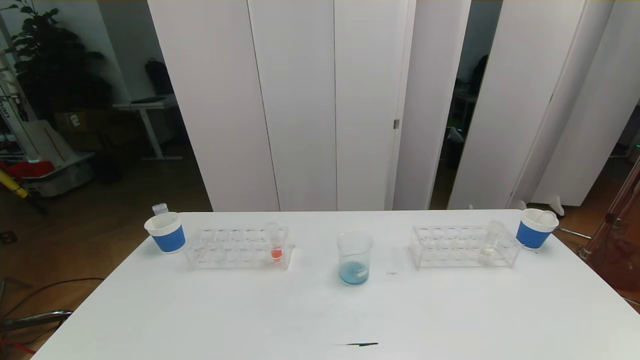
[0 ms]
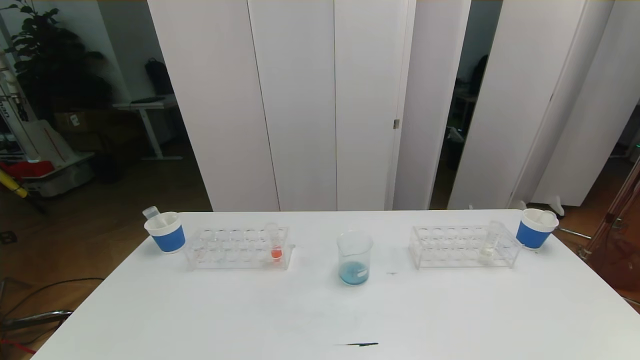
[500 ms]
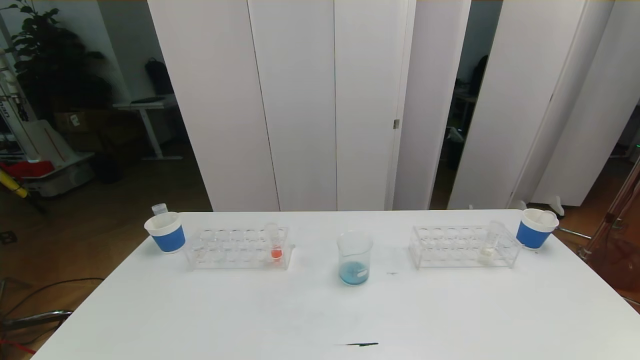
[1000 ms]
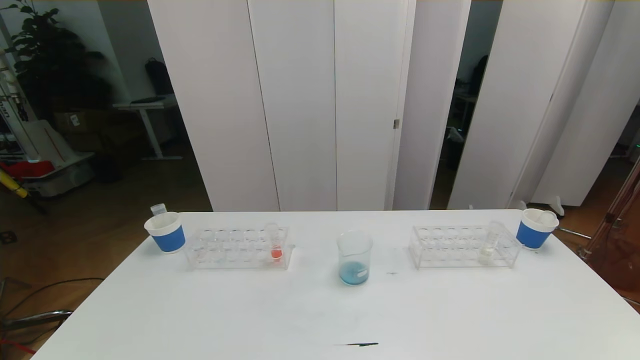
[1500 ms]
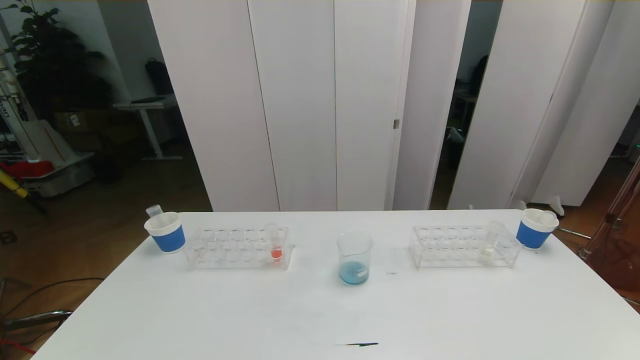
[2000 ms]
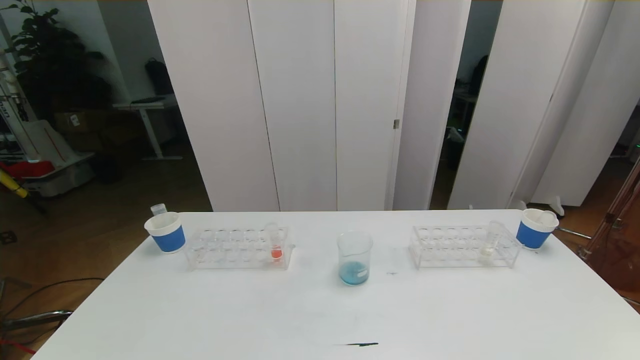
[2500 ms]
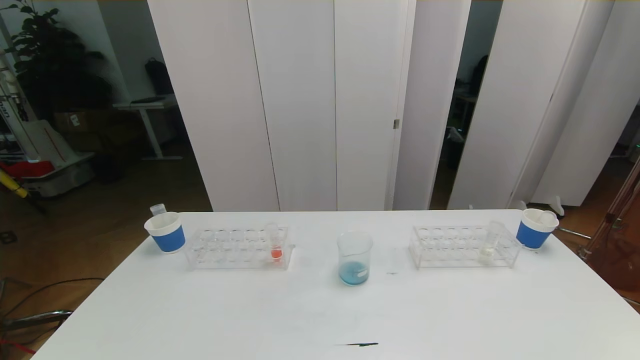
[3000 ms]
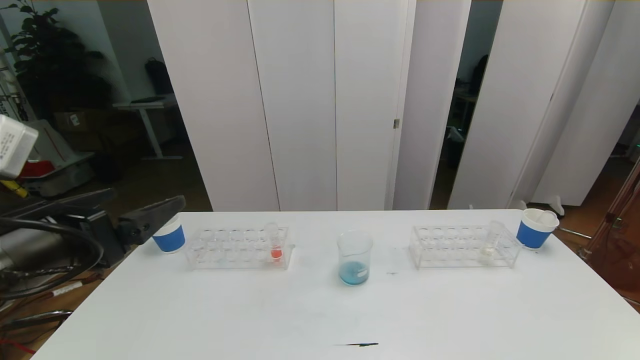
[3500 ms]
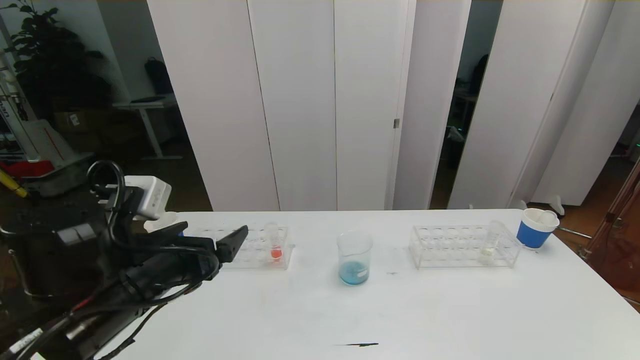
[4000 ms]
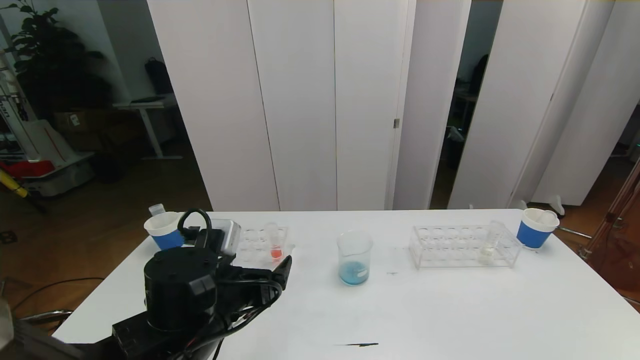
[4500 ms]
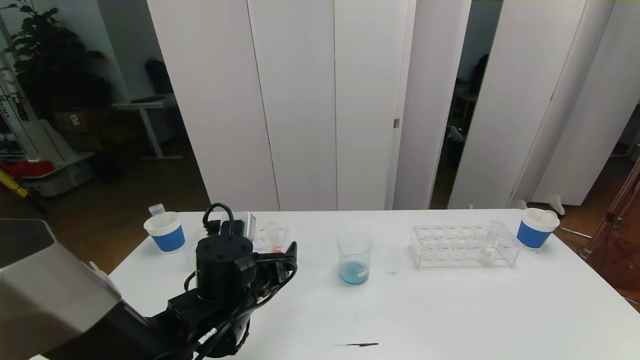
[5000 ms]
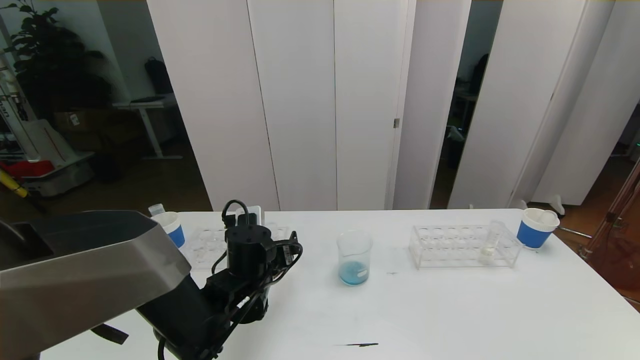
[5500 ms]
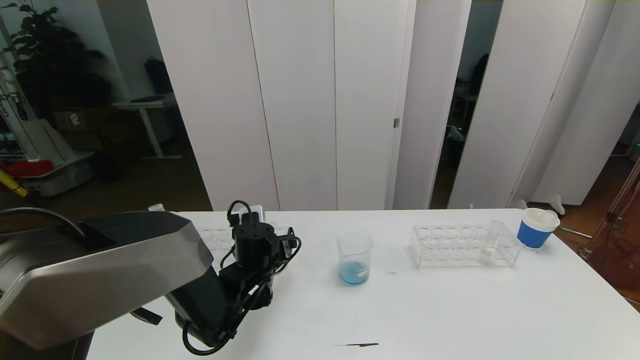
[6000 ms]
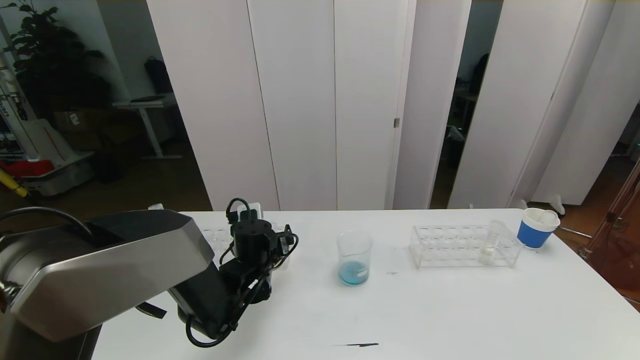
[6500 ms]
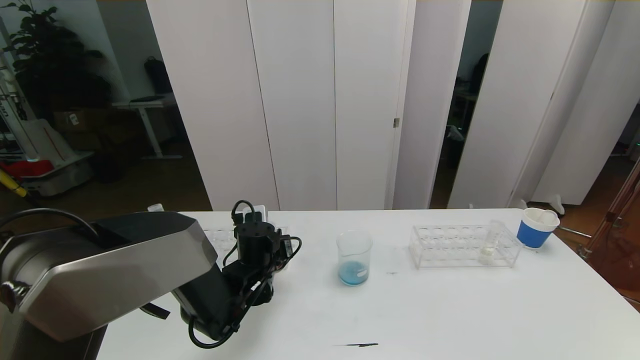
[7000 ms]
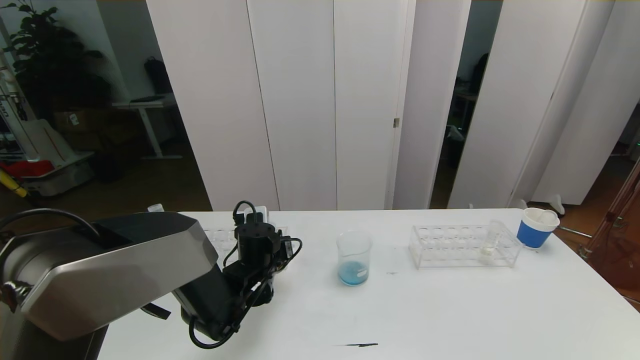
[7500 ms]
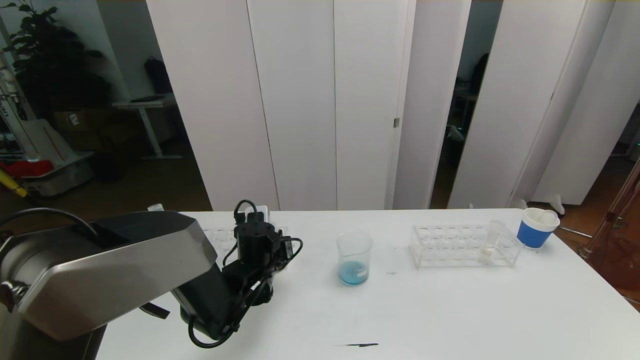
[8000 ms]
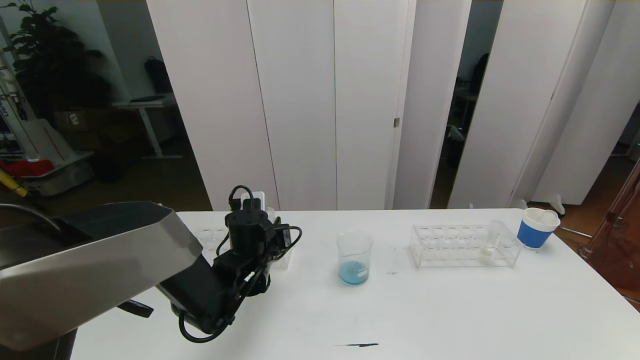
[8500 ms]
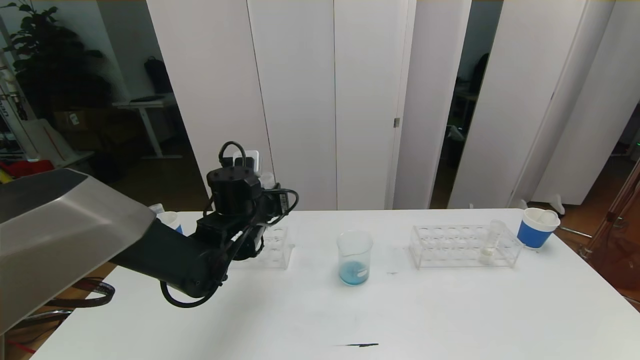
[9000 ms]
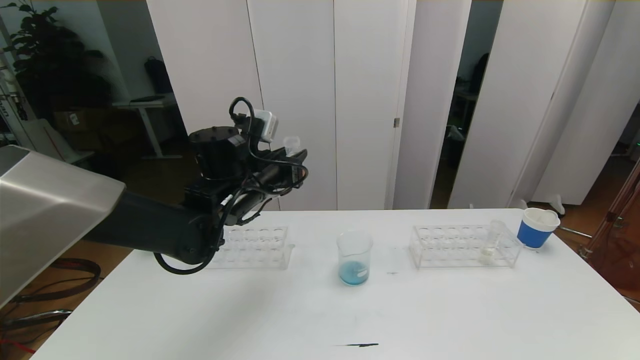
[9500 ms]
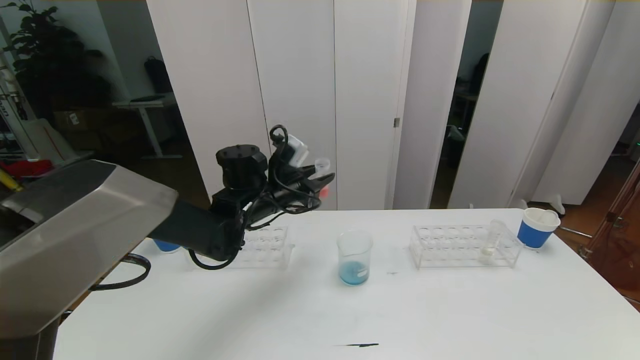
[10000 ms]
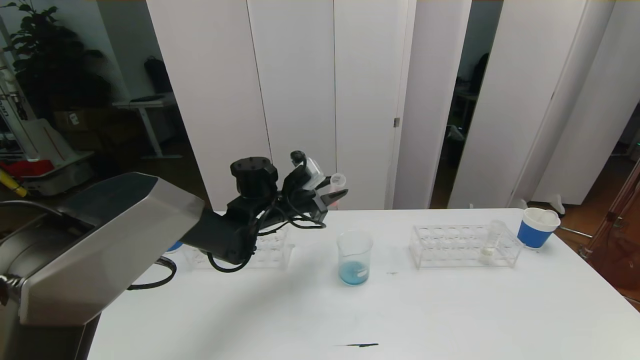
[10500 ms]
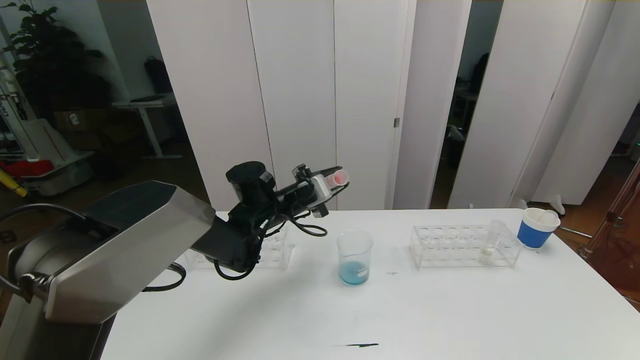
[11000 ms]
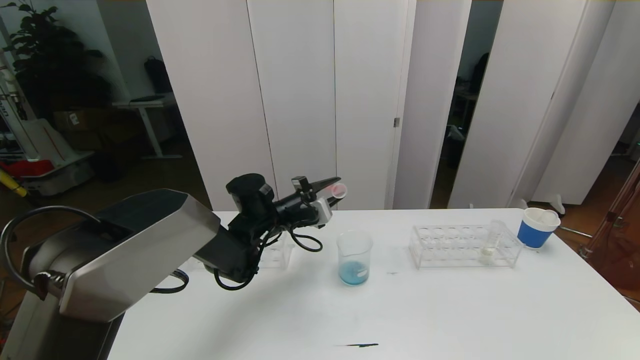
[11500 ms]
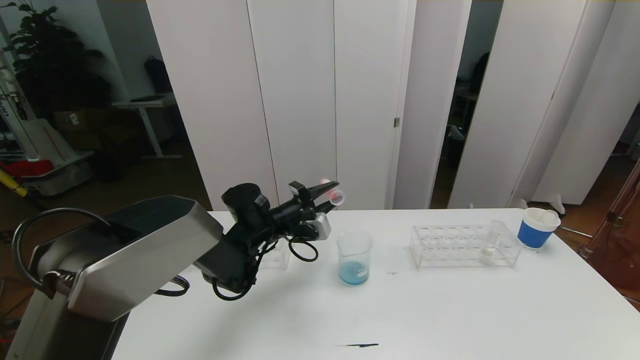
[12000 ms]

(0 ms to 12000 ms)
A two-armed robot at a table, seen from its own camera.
Task of the whole recording: pick up the test tube with red pigment the test tube with blue pigment and the test tube with white pigment by grippers and pour them into the beaker.
2000 ms - 4000 ms: The left gripper shifts approximately 25 cm forward and to the right.
4000 ms - 6000 ms: The left gripper heads forward, downward and to the right, covering approximately 20 cm.
6000 ms - 8000 ms: The left gripper closes up.
8000 ms - 10000 ms: The left gripper moves upward and forward, roughly 15 cm.
10000 ms - 12000 ms: The left gripper goes approximately 5 cm downward.

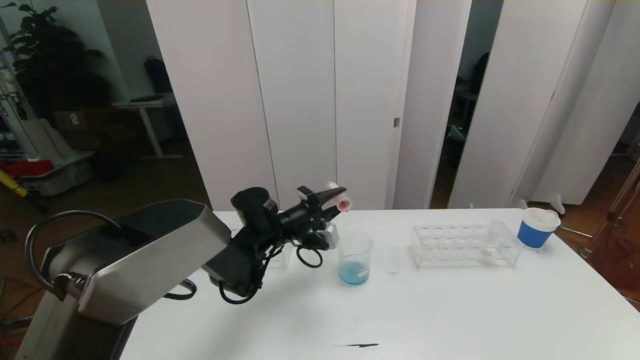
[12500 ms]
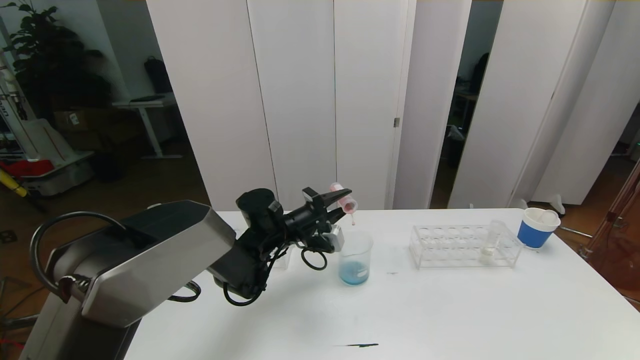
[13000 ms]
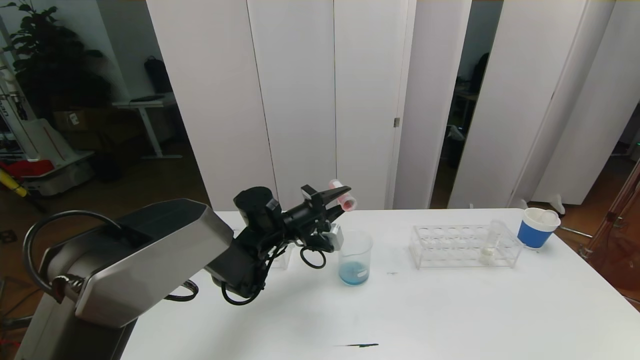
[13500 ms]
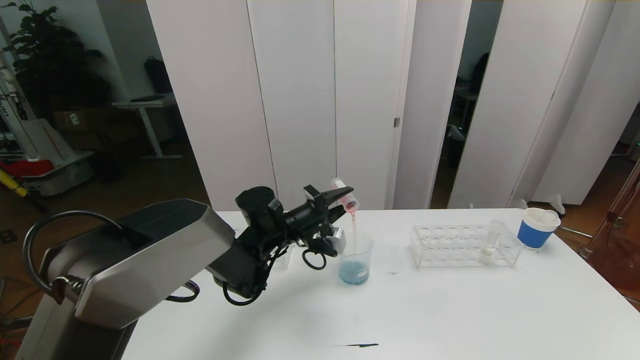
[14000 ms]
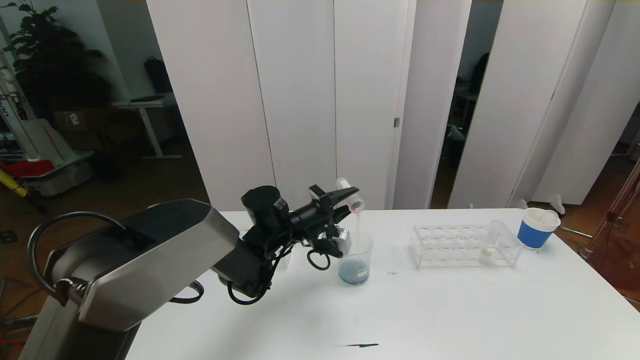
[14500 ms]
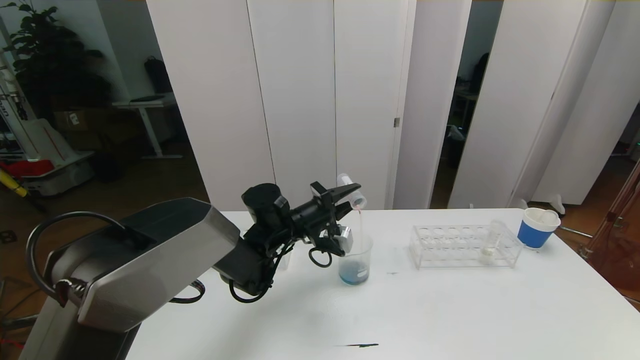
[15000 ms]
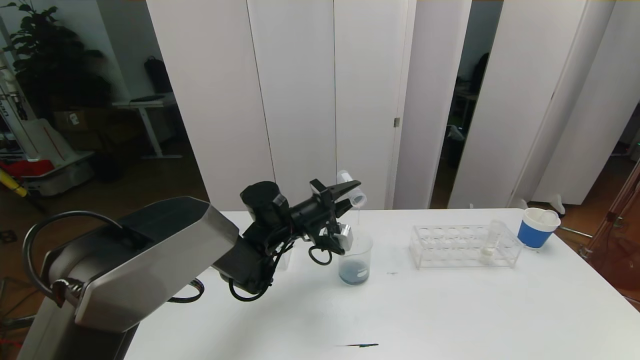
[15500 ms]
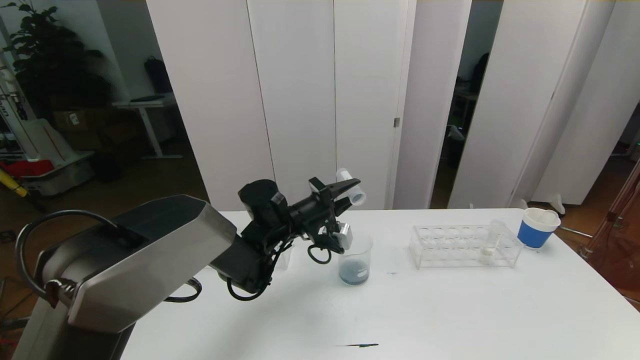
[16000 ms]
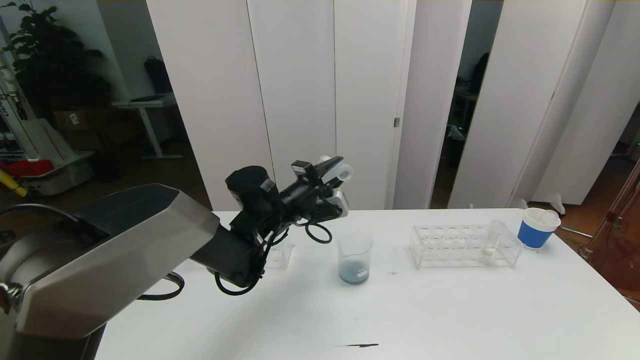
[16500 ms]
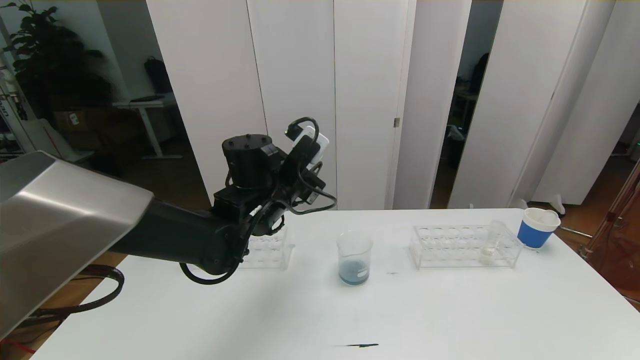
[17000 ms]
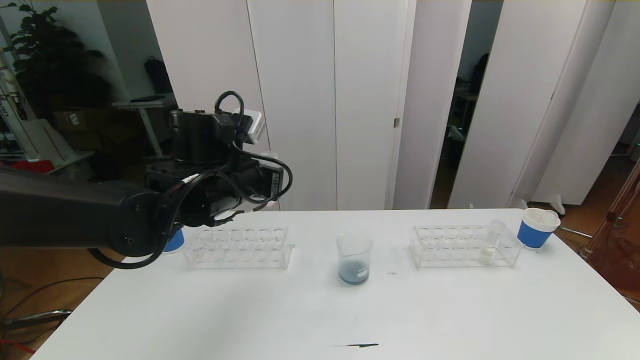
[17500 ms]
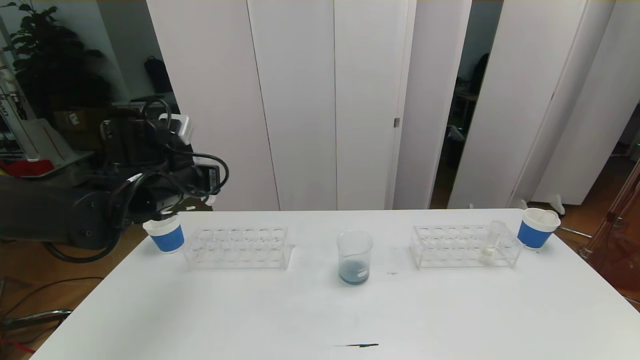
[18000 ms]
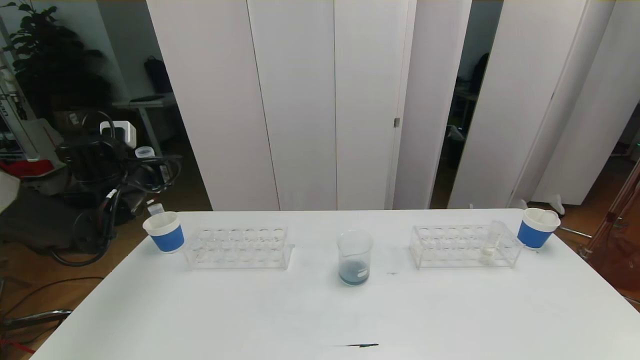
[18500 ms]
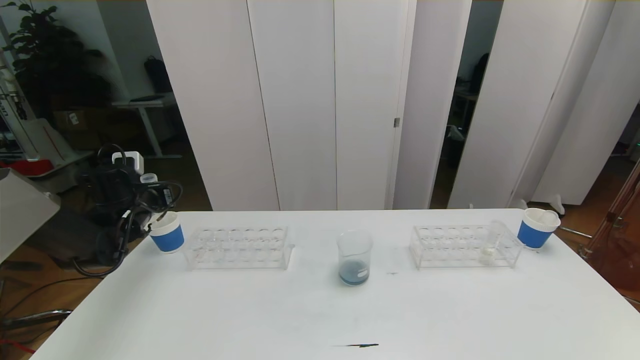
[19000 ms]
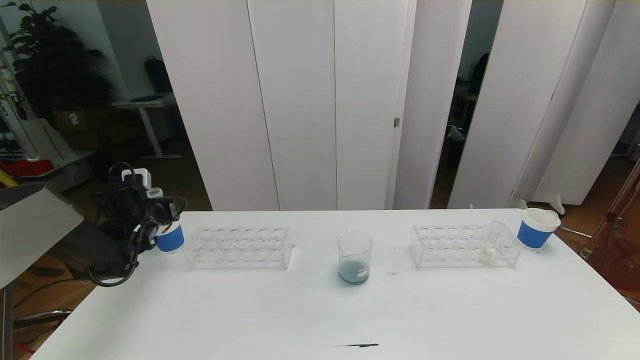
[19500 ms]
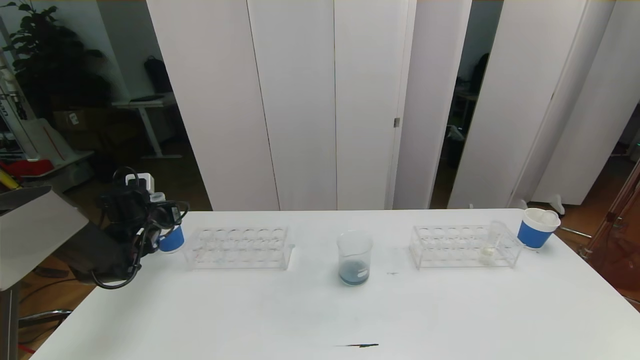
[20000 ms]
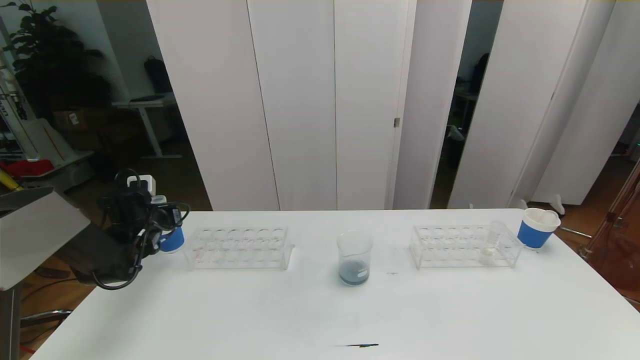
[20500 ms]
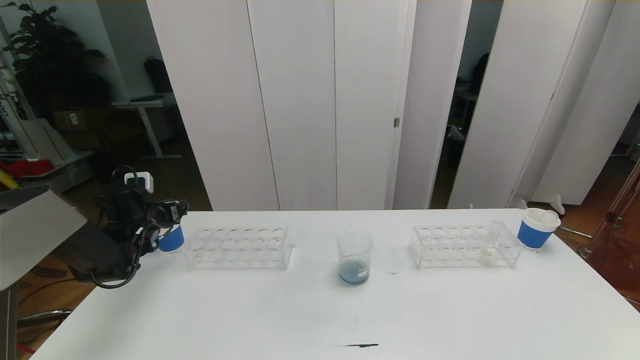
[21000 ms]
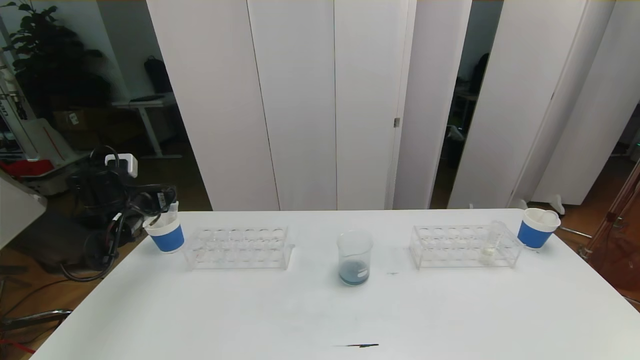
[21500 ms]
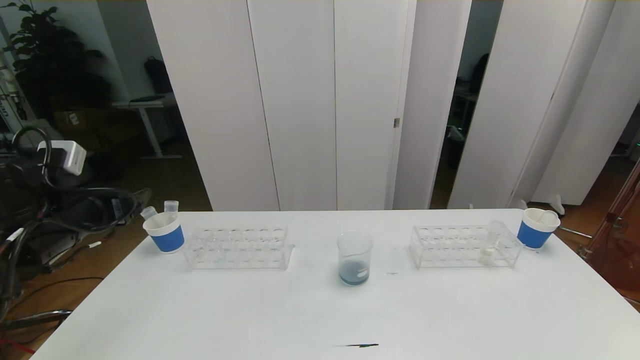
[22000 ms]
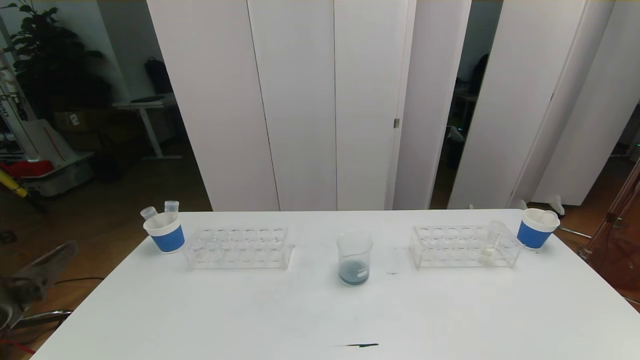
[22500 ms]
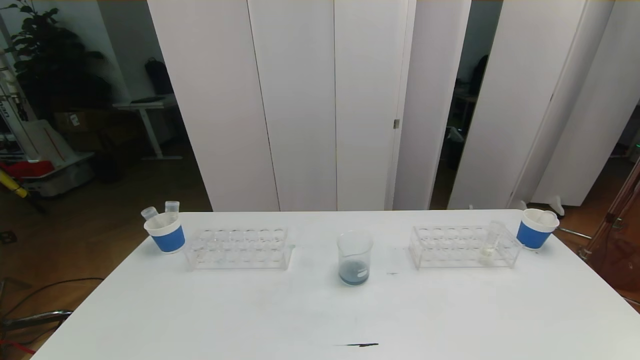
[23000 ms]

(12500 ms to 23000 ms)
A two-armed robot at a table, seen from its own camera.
Task of the whole recording: pick up the test tube with red pigment the test tube with blue pigment and the test tube with white pigment by grippers and pour them into the beaker.
12500 ms - 14500 ms: The grippers stay close to where they were, moving slightly.
14500 ms - 16500 ms: The left gripper travels upward by roughly 5 cm.
16500 ms - 19000 ms: The left gripper heads to the left, covering about 30 cm.
19000 ms - 21000 ms: The left gripper opens.
21000 ms - 23000 ms: The left gripper is displaced backward by roughly 40 cm.
